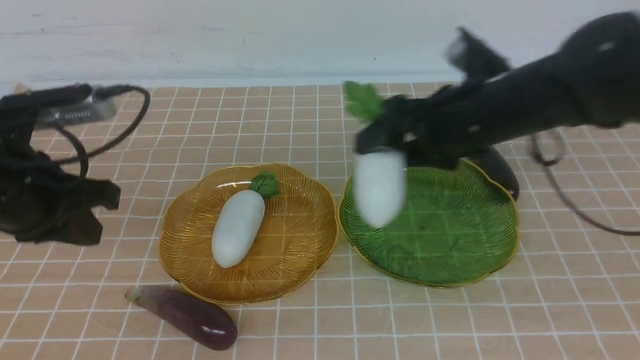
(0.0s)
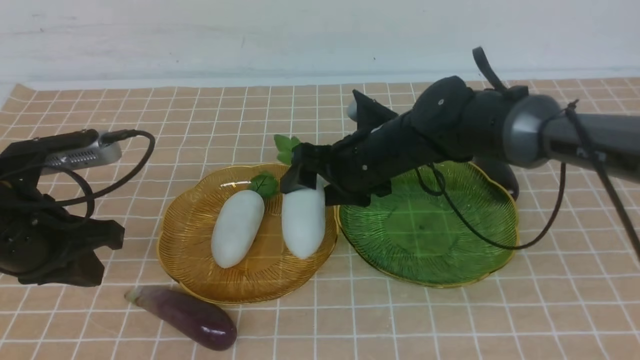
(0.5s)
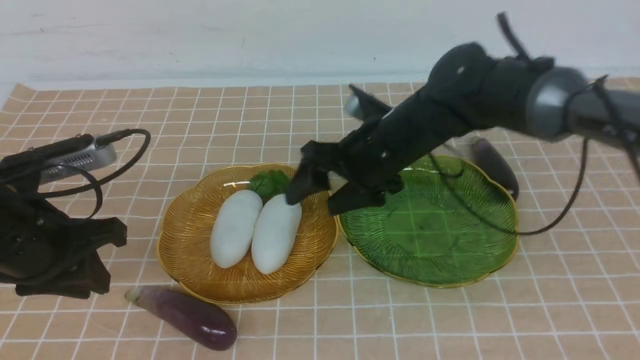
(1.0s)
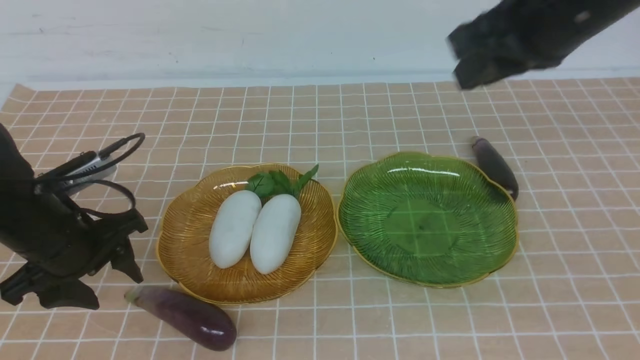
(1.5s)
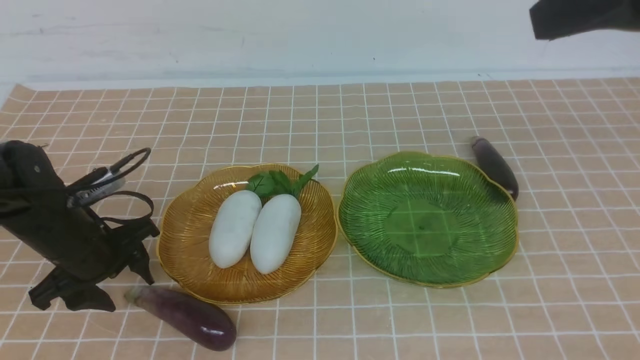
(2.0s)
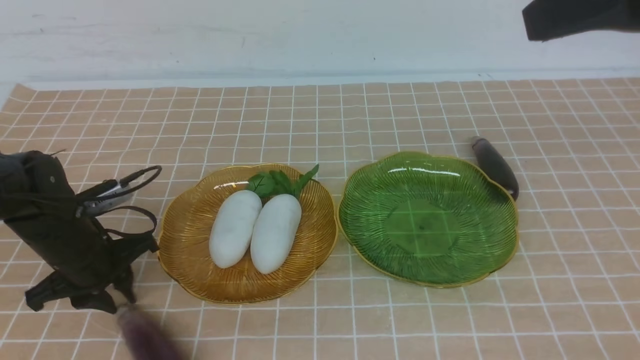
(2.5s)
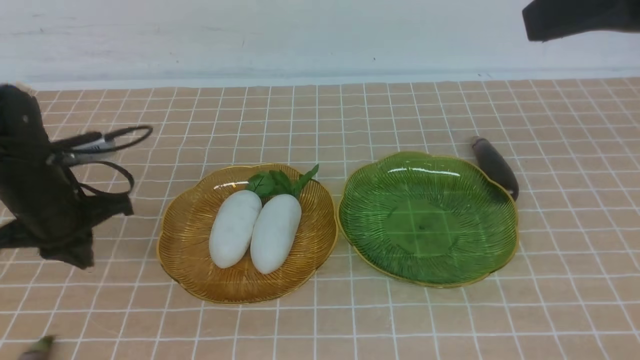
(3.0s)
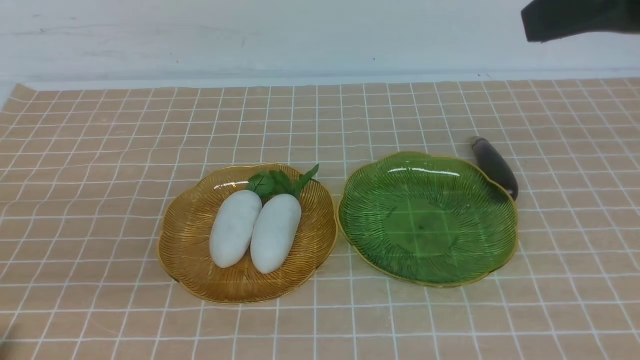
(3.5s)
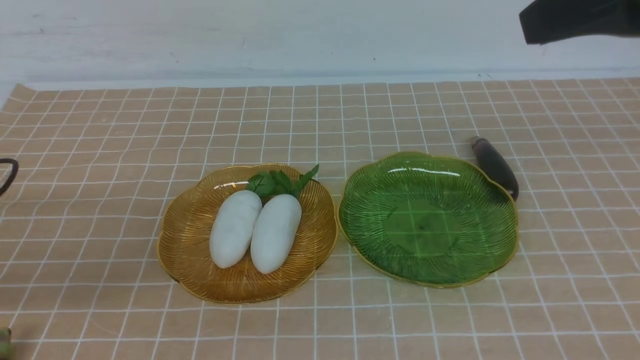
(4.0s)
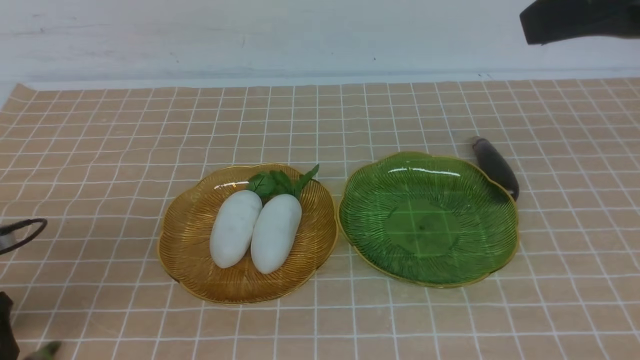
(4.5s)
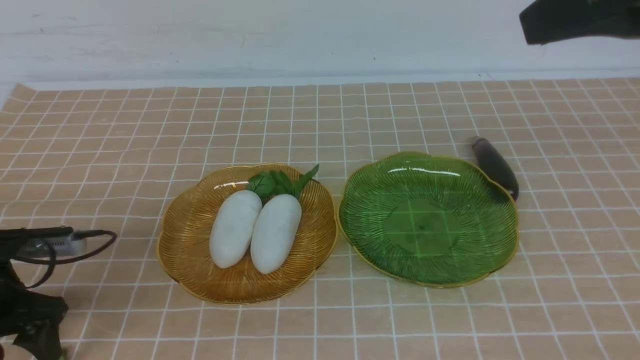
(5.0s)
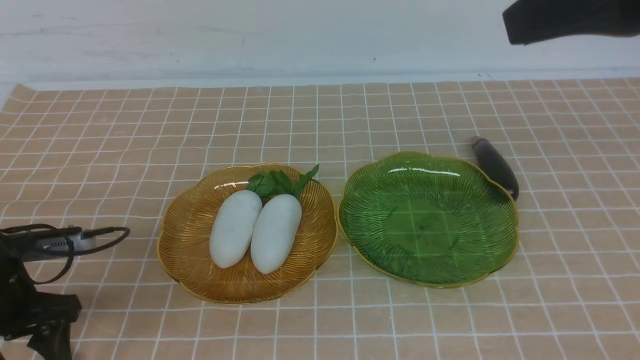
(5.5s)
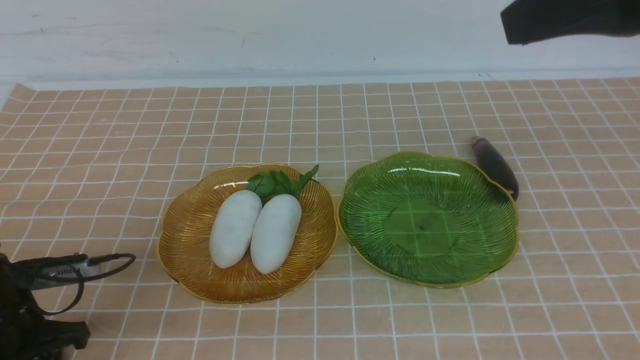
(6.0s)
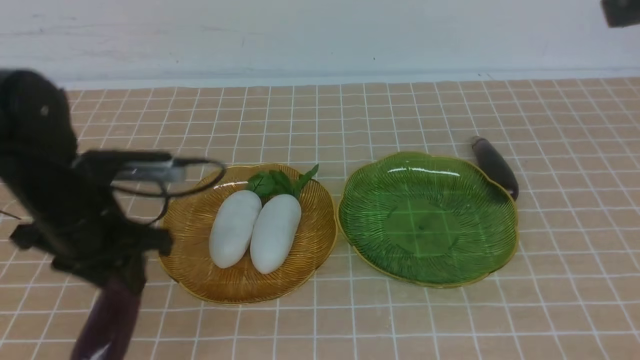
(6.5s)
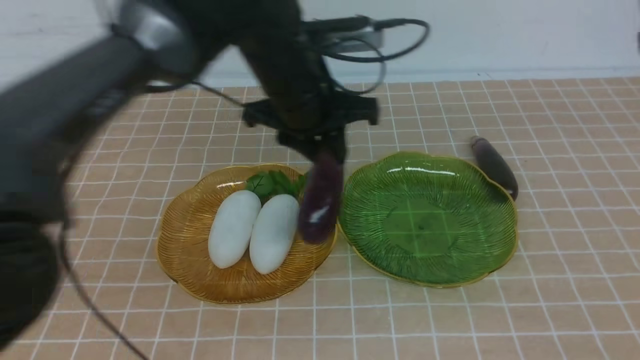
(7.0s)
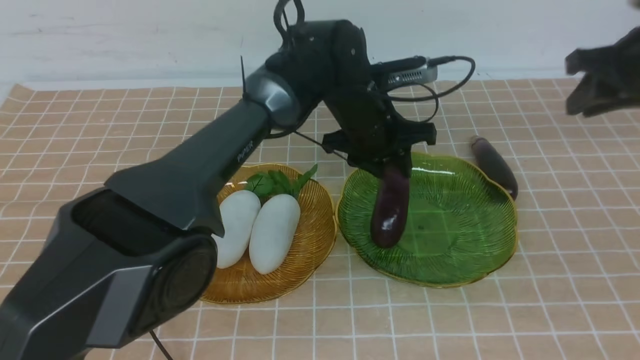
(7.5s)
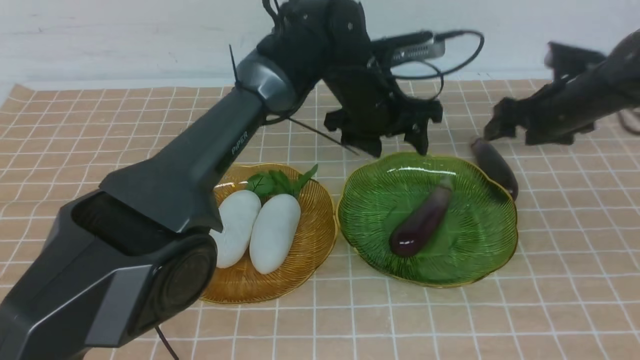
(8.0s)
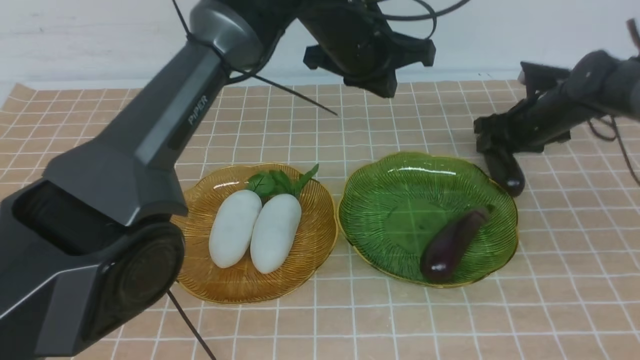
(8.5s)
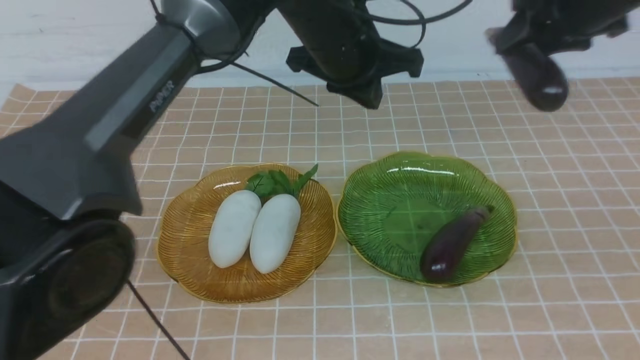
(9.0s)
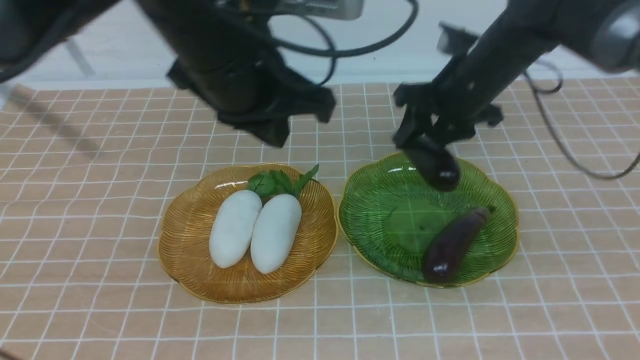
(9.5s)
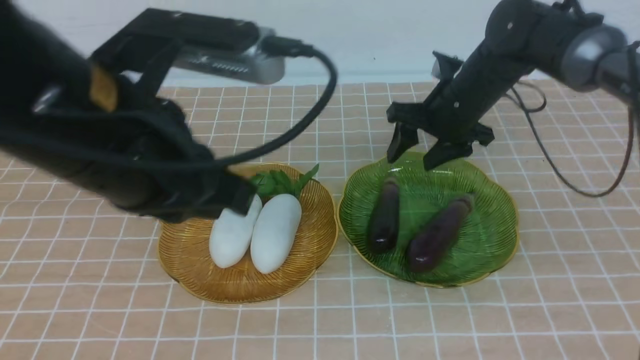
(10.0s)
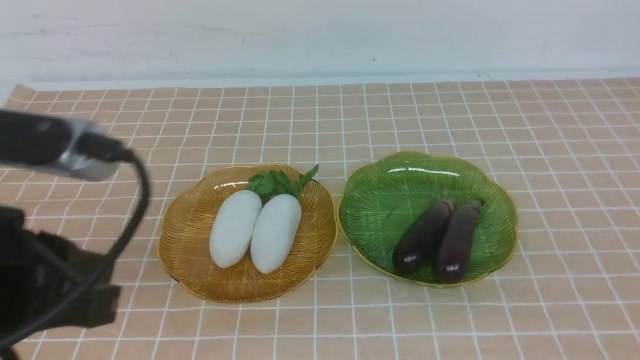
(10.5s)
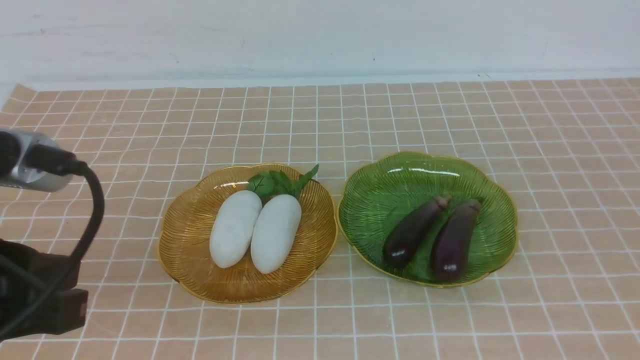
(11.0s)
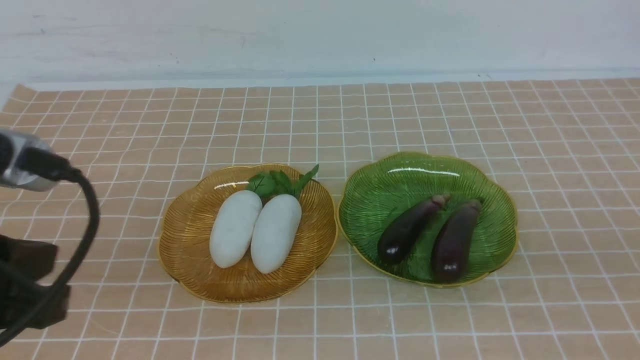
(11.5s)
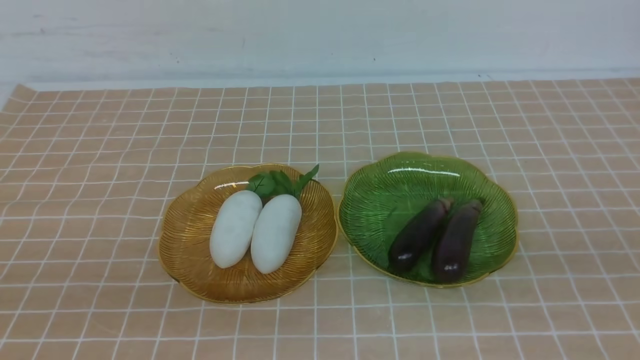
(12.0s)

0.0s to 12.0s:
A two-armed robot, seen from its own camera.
Step, 0.0s to 1.0s: use the right arm to grab a radish and put it into the left plate.
Step, 1.5s to 8.0s: use the left arm to grab an eggplant and put it into the right plate.
Step, 8.5s to 10.0s: use the right arm to grab an eggplant and put it into the right plate.
0.0s to 2.0s: The right gripper goes about 35 cm upward, backward and to the right, and closes its fingers; the left gripper moves downward and forward, roughly 15 cm, and opens its fingers.
2.0s to 4.0s: The left gripper goes about 15 cm to the left, backward and upward, and closes, then reopens.
4.0s to 6.0s: The left gripper goes about 10 cm downward and to the right.
6.0s to 8.0s: The left gripper shifts about 40 cm to the right, forward and upward, and closes; the right gripper is displaced downward and forward by some 40 cm, and opens.
8.0s to 10.0s: The left gripper is displaced backward and to the left by some 40 cm. The right gripper moves up and down over approximately 35 cm, changing direction 2 times, and closes its fingers.
10.0s to 12.0s: The right gripper shifts approximately 30 cm backward, downward and to the right; the left gripper is displaced to the left and backward by about 10 cm.

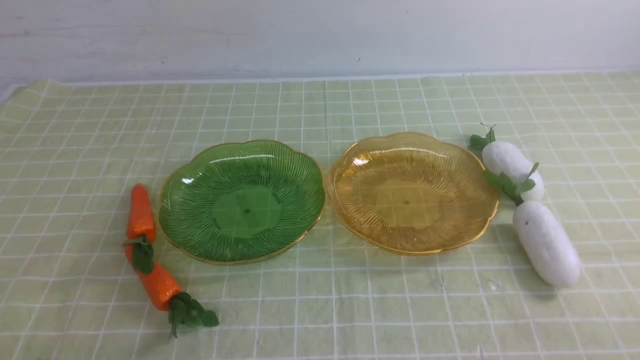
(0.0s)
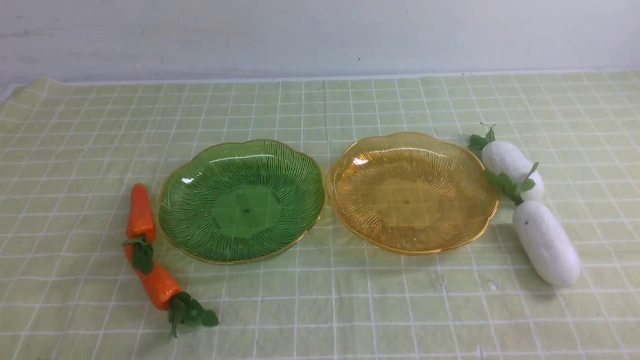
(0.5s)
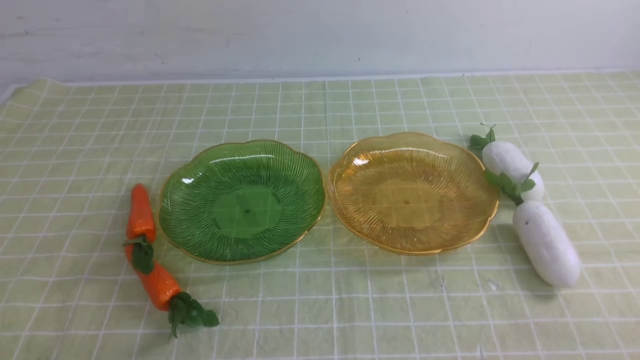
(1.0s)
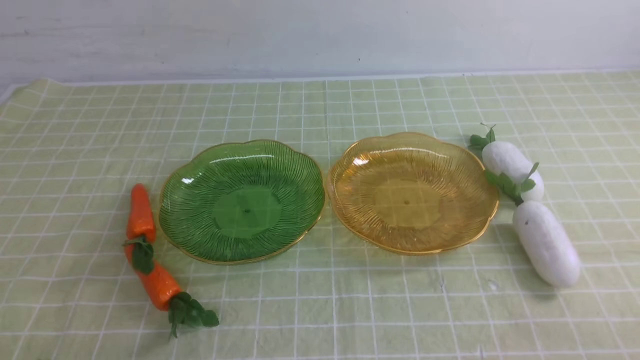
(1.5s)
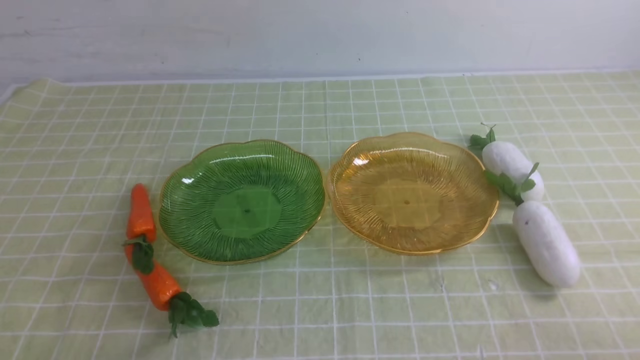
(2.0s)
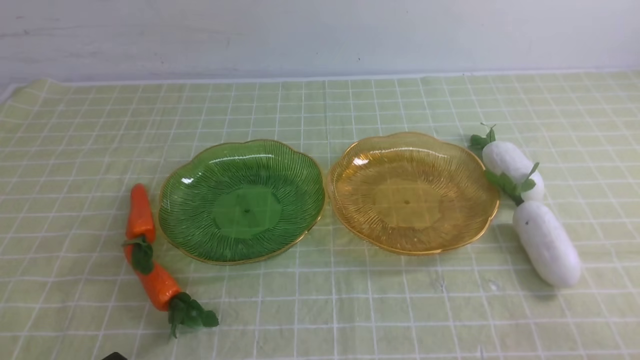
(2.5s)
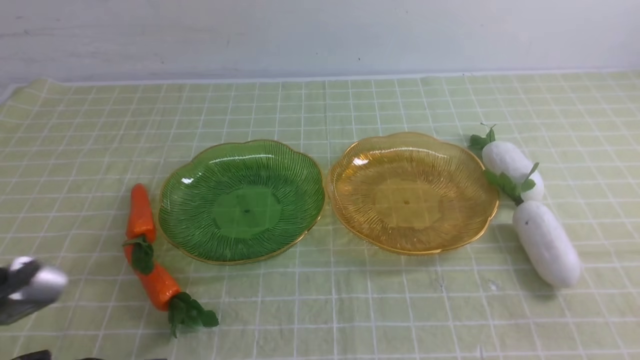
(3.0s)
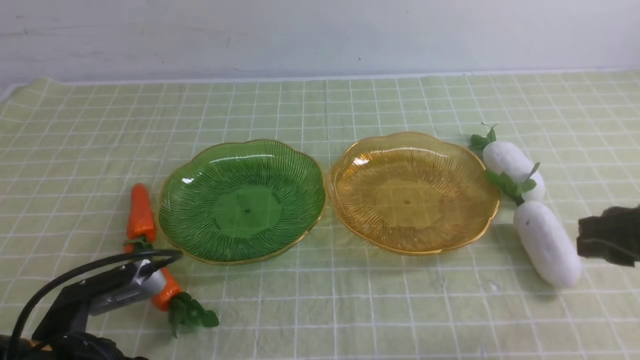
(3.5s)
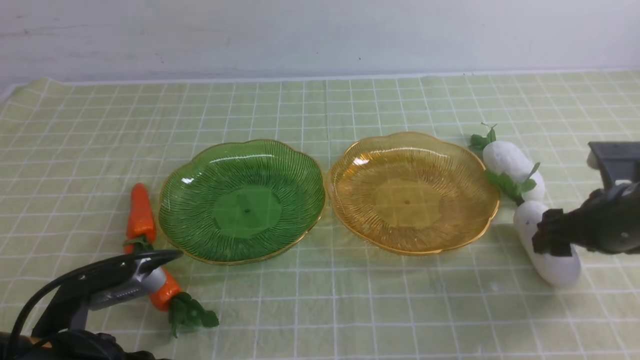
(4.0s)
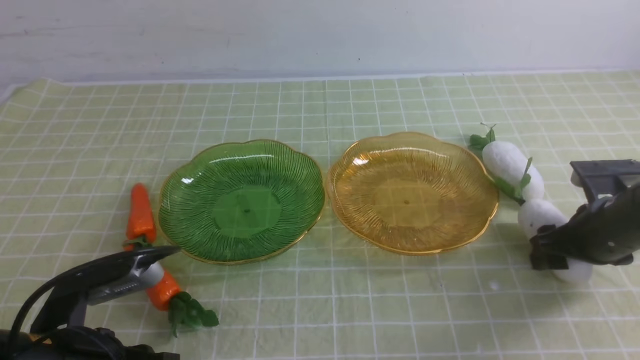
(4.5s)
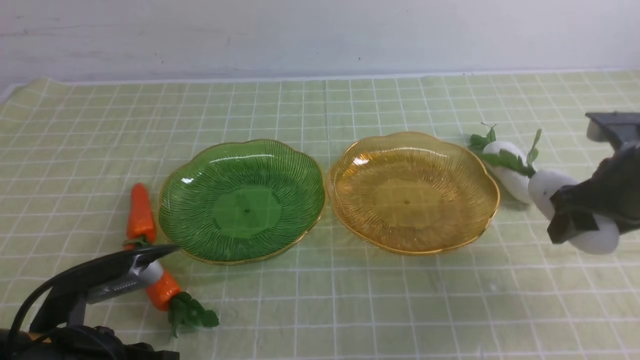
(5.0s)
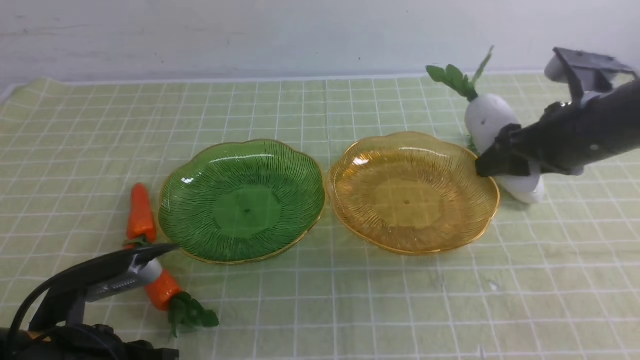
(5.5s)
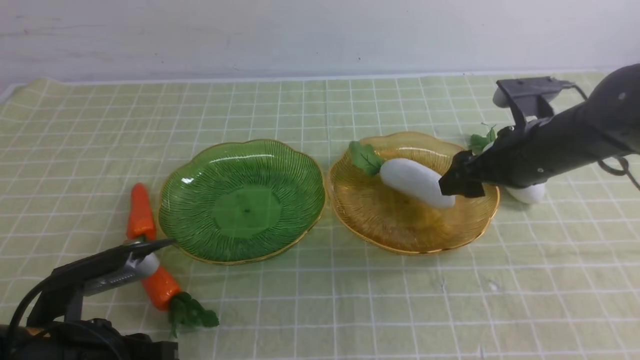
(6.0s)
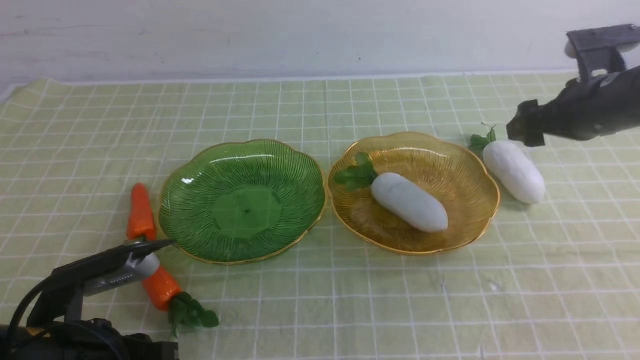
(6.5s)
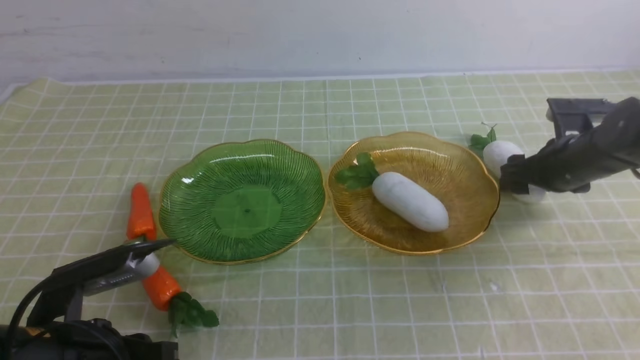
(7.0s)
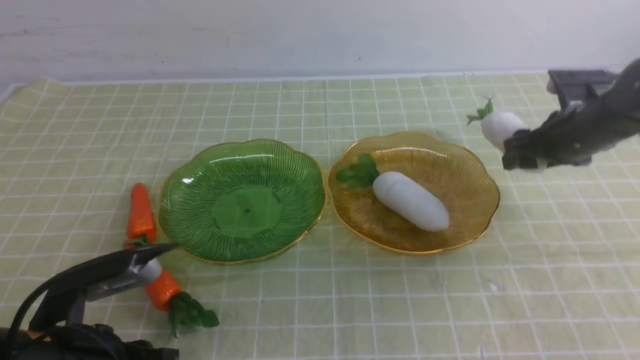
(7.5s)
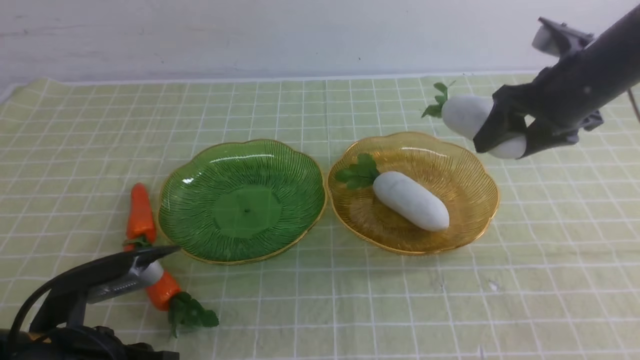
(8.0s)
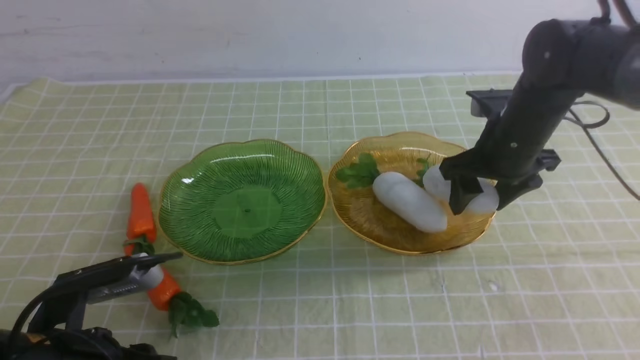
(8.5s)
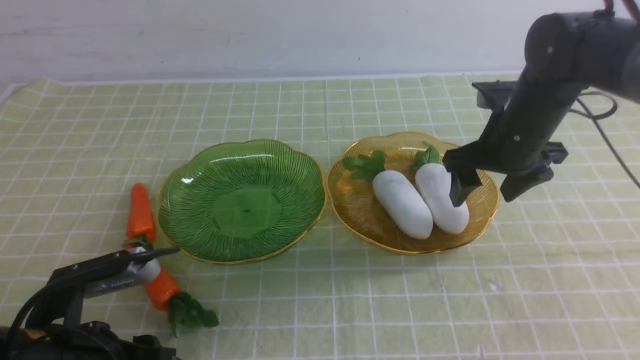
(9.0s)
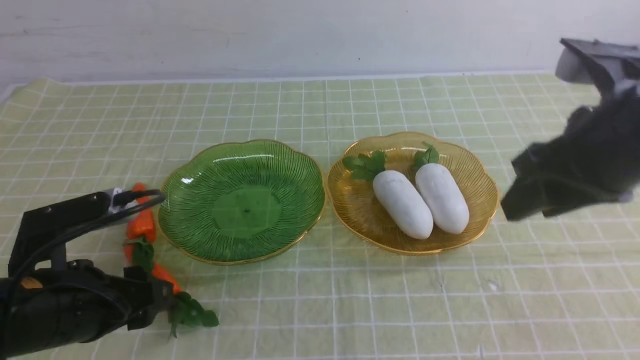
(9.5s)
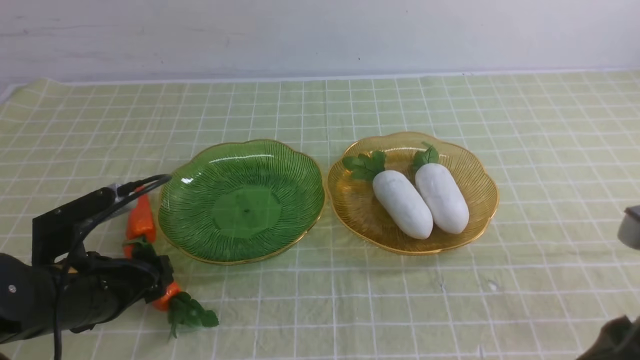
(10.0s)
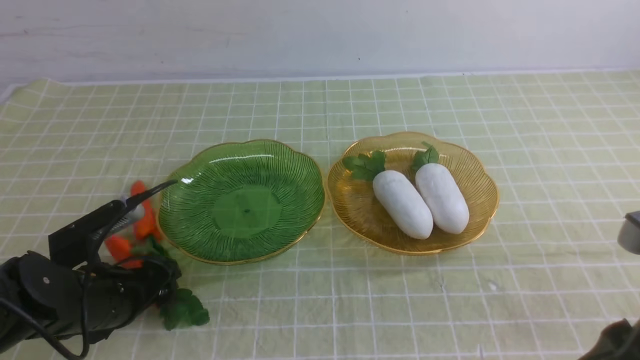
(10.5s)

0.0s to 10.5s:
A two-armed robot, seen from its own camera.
Step, 0.0s to 8.5s: use the right arm to grab a radish and put it into the right plate.
2.0s to 4.0s: The left gripper travels forward by approximately 10 cm; the right gripper goes about 25 cm forward, and opens its fingers.
4.0s to 6.5s: The right gripper is displaced forward and upward by some 10 cm.
6.5s to 8.5s: The right gripper goes up and down, roughly 10 cm each way, reversing 2 times.
8.5s to 10.5s: The right gripper is displaced backward by roughly 25 cm, and closes. Meanwhile the left gripper is displaced forward and downward by roughly 10 cm, and opens.
